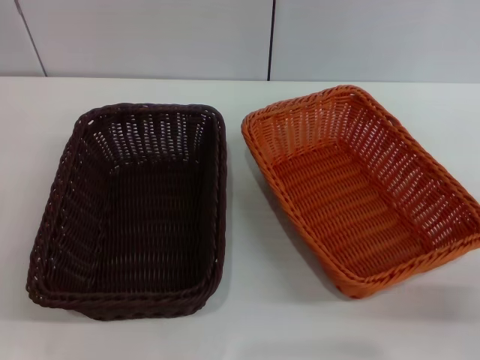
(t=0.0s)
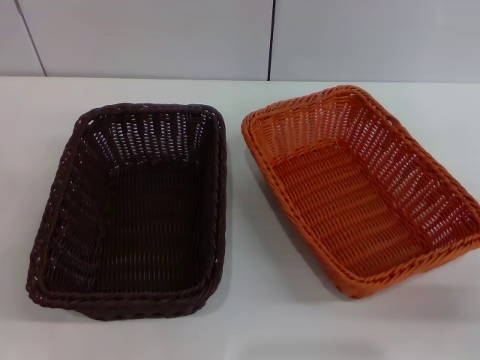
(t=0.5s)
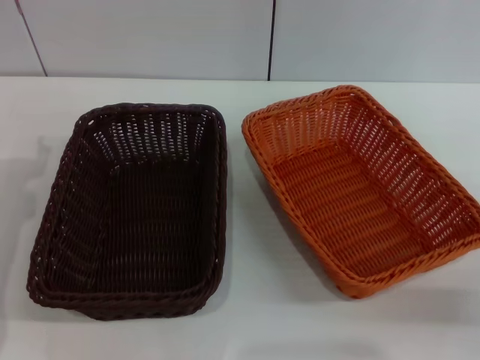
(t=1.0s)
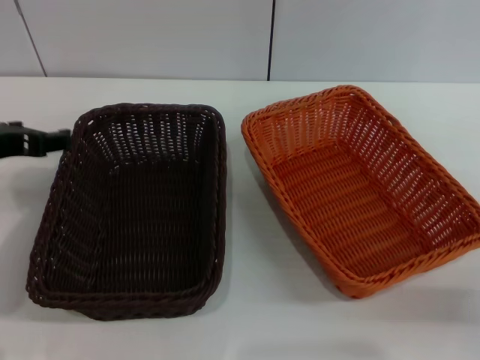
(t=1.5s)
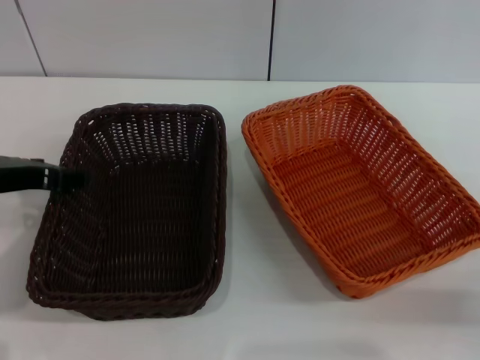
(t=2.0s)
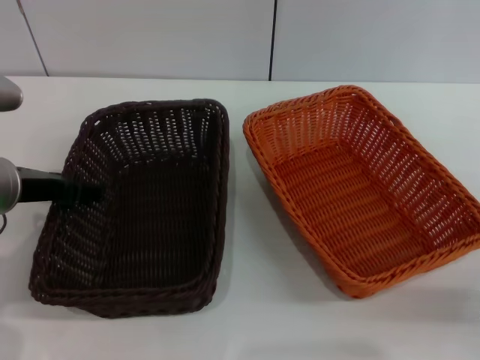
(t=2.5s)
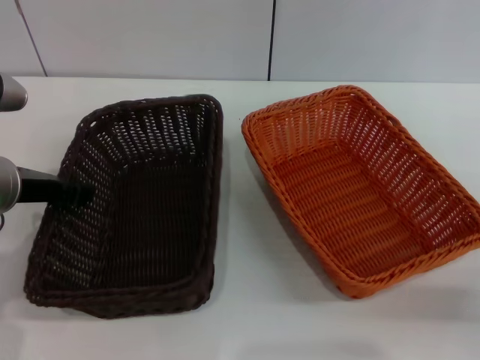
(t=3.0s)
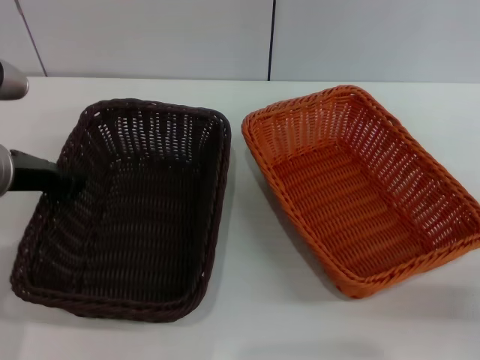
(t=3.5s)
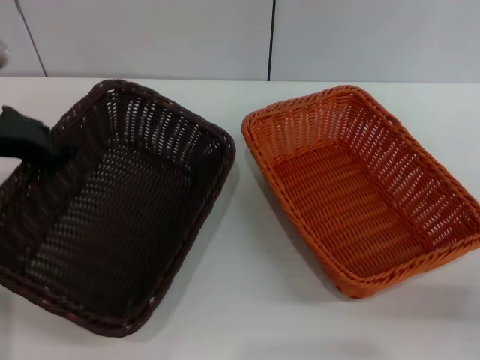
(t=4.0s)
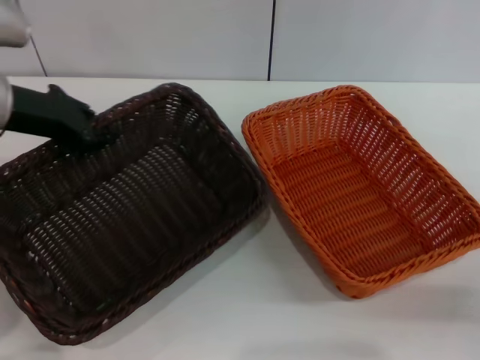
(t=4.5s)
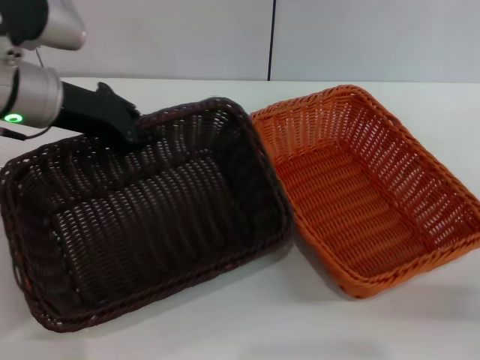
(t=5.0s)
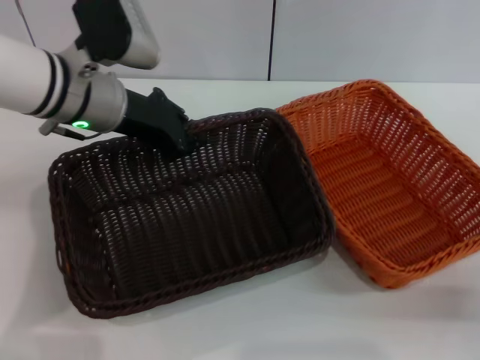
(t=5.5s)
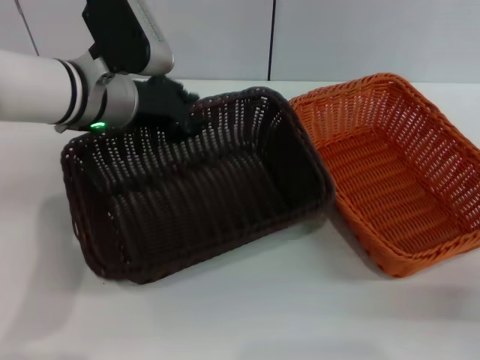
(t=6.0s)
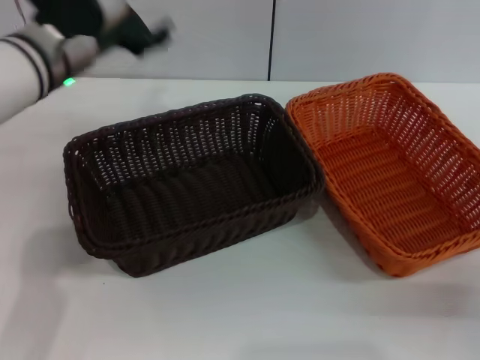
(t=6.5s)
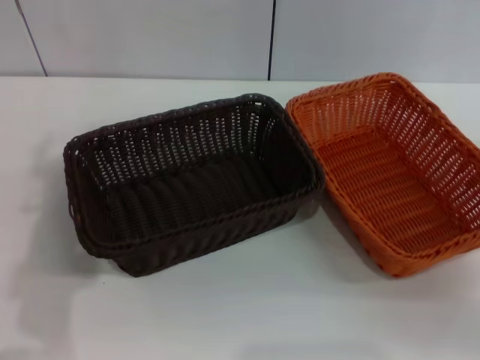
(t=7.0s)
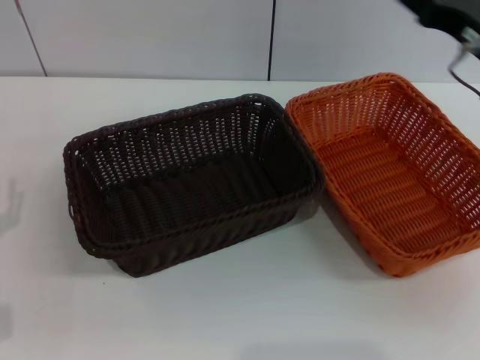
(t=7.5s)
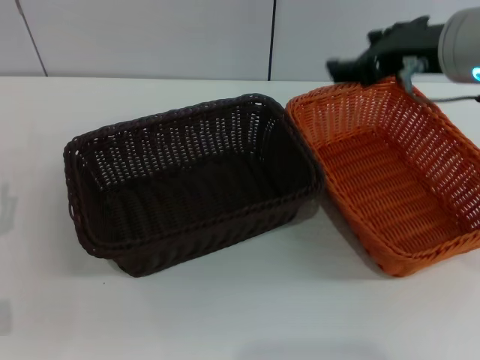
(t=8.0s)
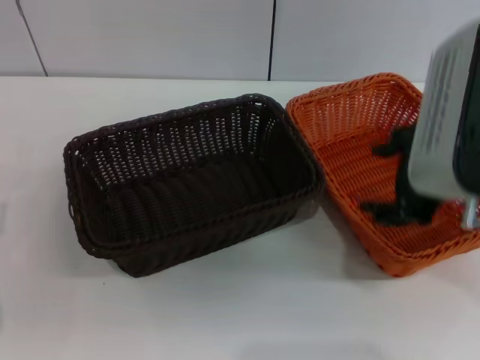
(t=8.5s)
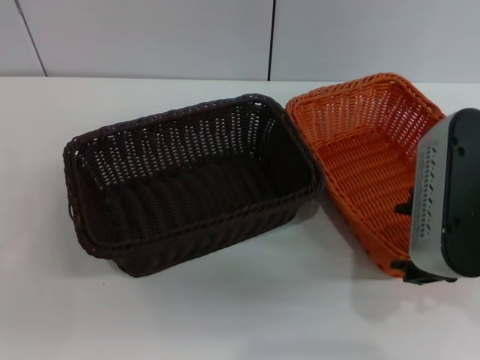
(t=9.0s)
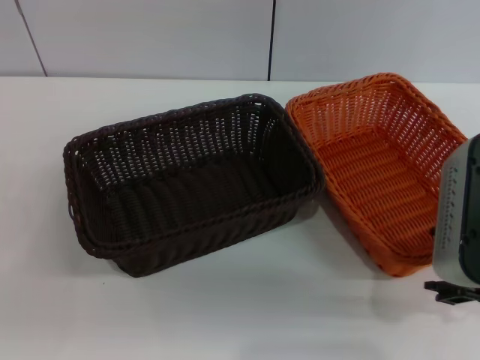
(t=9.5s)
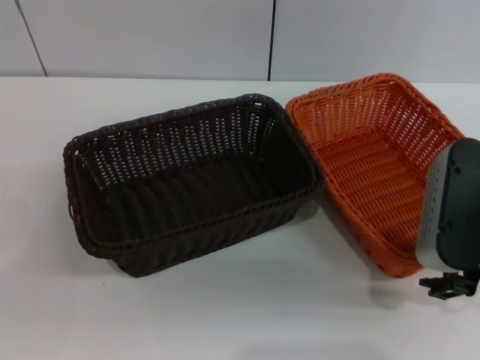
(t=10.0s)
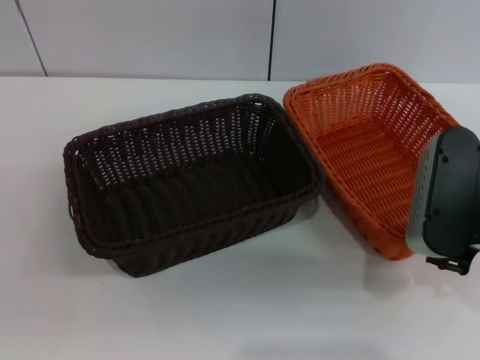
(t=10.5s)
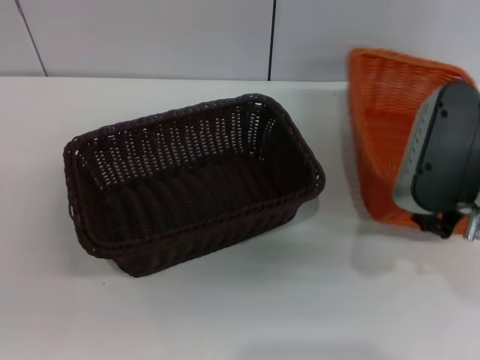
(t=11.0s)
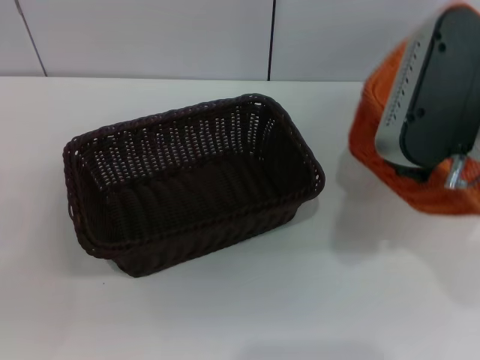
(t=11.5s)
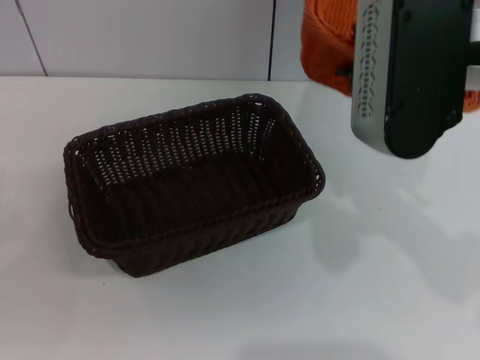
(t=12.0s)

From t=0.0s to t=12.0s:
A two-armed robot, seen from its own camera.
Step, from t=0.0s to t=4.0s: Pick up the dark basket with the left gripper.
Step, from t=4.5s to t=6.0s: Place the dark basket in the center of view with the left gripper.
Step, from t=6.5s to t=11.0s: Pick up the light basket with the right gripper.
From t=0.0s to t=2.0s: The left gripper heads upward, to the right and forward, covering roughly 20 cm.
From t=2.0s to t=4.0s: The left gripper shifts by approximately 5 cm, and closes.
From t=4.0s to t=6.0s: The left gripper is displaced to the right and forward by approximately 15 cm.
From t=6.0s to t=8.0s: The left gripper shifts some 25 cm backward, to the left and downward, and opens. The right gripper travels upward and to the left by roughly 25 cm.
From t=8.0s to t=10.0s: The right gripper goes approximately 10 cm downward and backward.
From t=10.0s to t=12.0s: The right gripper moves upward and to the left, some 15 cm, and closes.

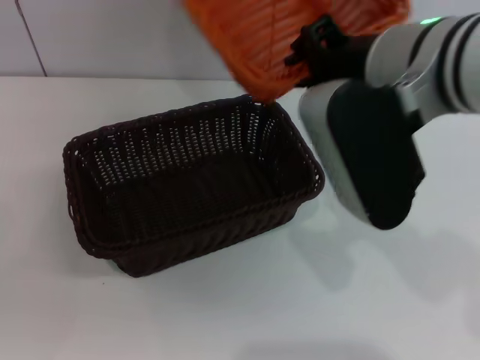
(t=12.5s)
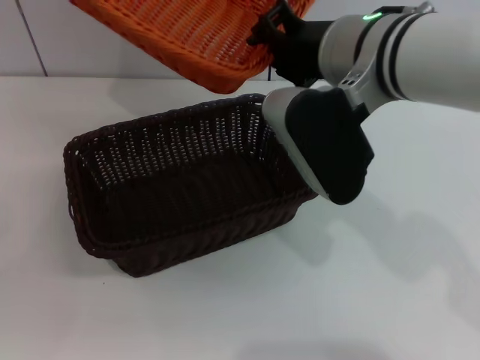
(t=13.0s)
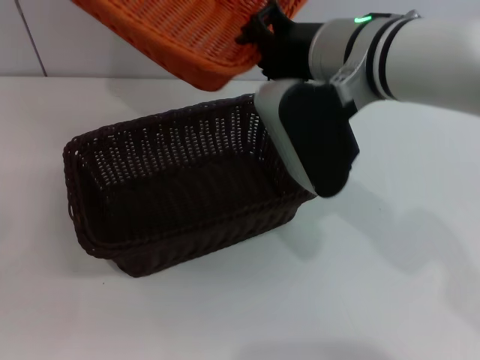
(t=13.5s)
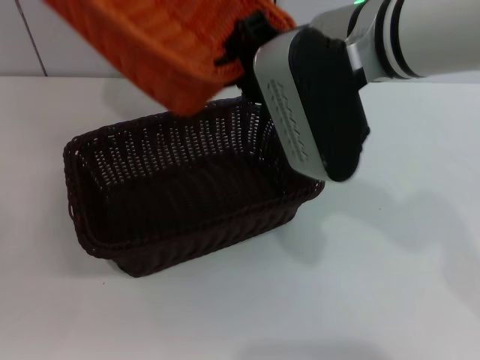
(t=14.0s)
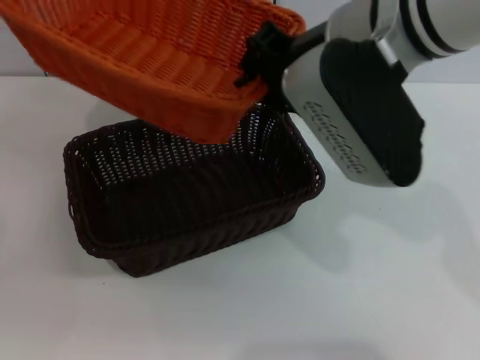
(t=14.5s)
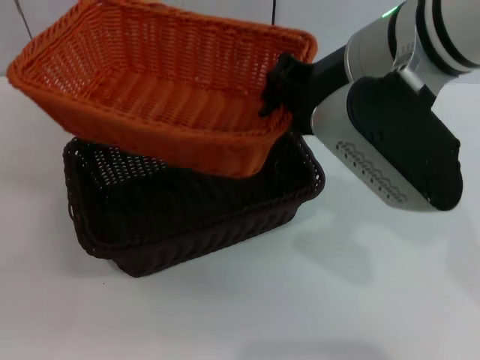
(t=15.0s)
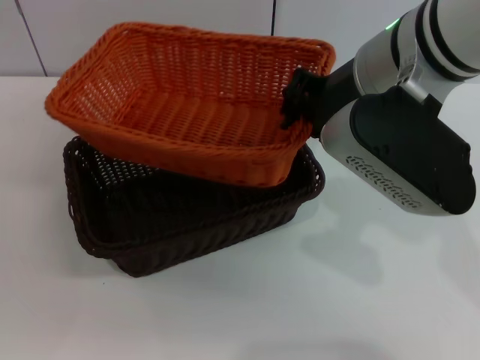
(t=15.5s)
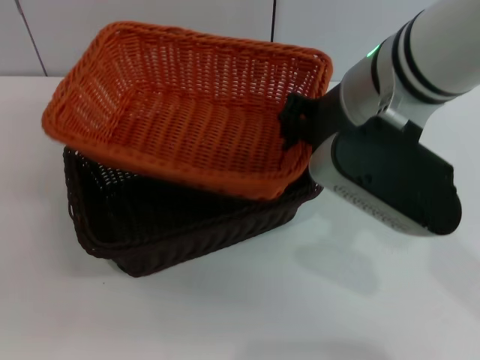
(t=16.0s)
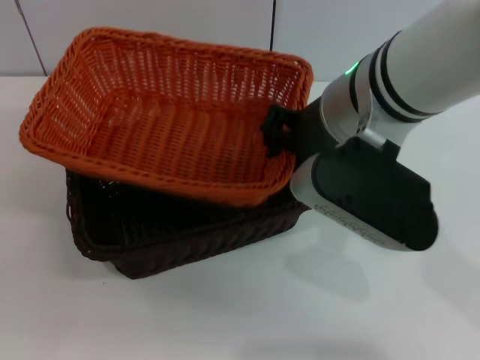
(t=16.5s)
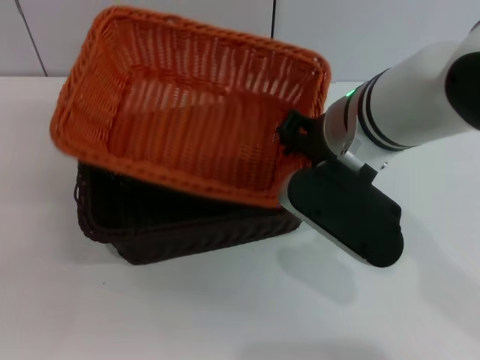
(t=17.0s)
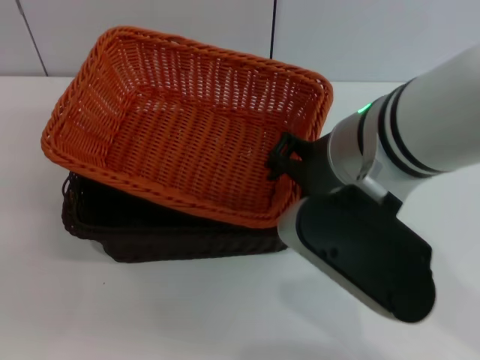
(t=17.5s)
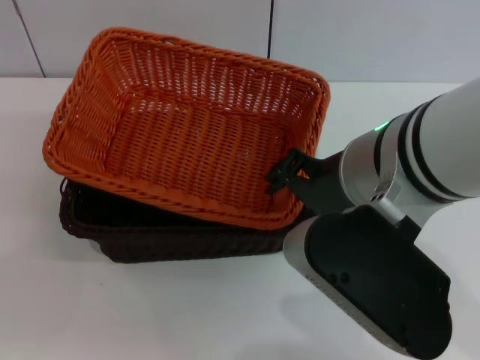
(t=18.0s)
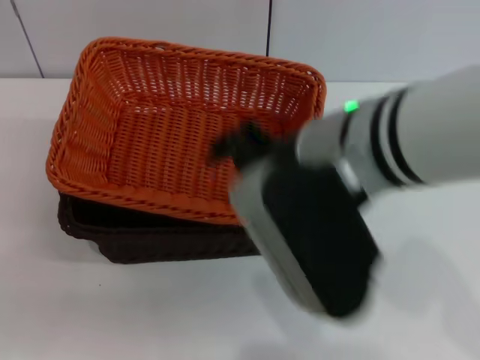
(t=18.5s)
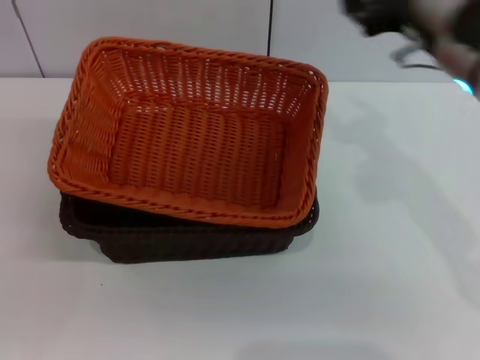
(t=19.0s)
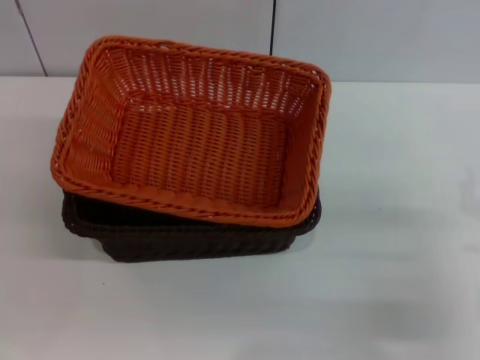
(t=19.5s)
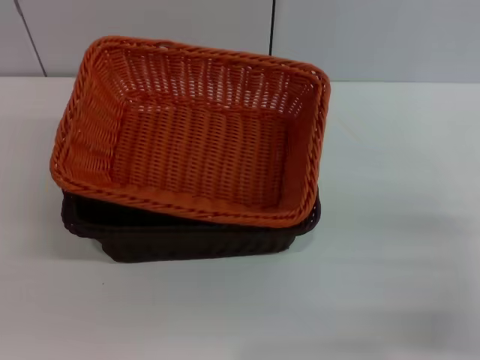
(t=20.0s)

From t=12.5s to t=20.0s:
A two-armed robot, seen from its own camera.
Step, from t=12.5s to t=18.0s: Place the light basket on the dark basket with the right gripper.
From t=16.5s to t=18.0s: The right gripper moves backward, approximately 5 cm, and opens up.
From t=18.0s to t=20.0s: The right gripper heads to the right and downward, covering roughly 30 cm.

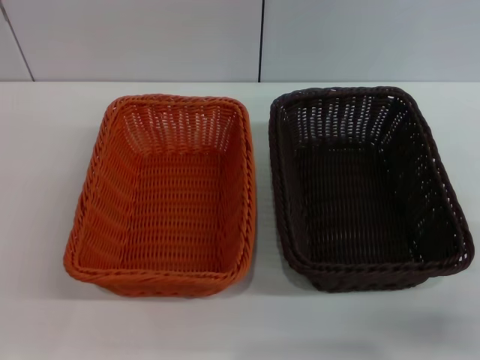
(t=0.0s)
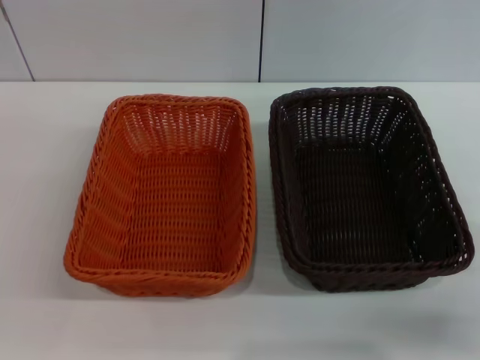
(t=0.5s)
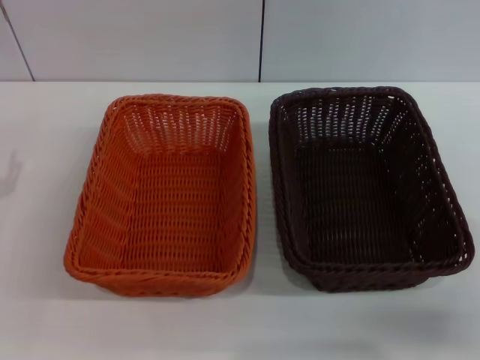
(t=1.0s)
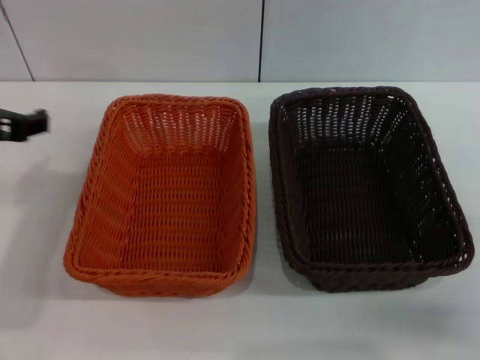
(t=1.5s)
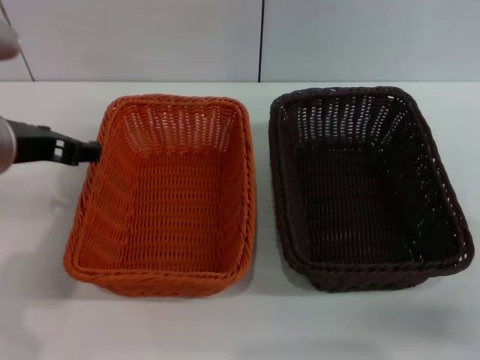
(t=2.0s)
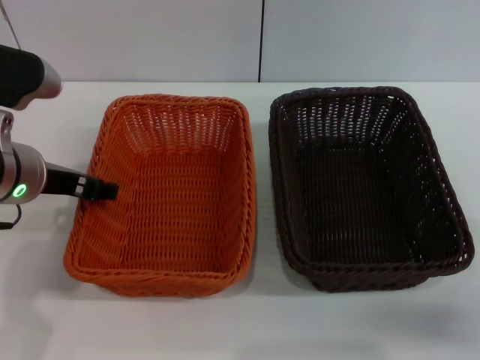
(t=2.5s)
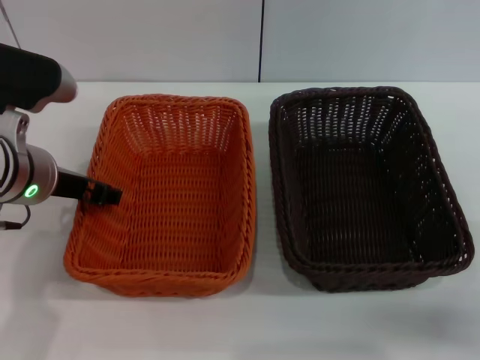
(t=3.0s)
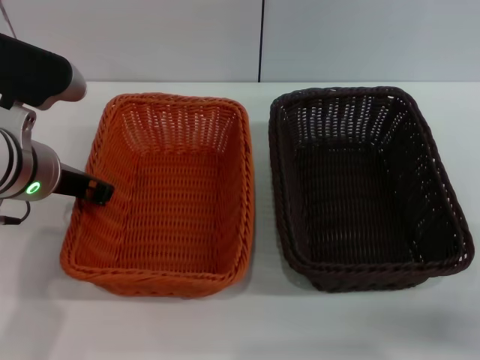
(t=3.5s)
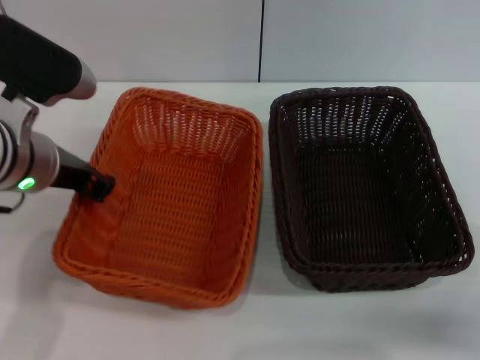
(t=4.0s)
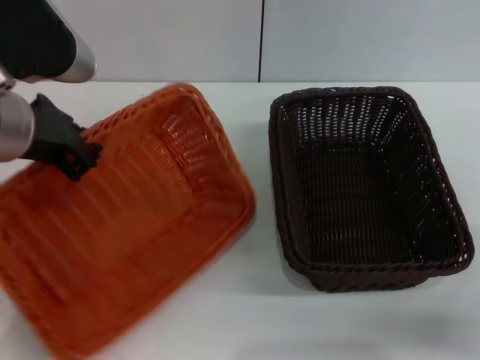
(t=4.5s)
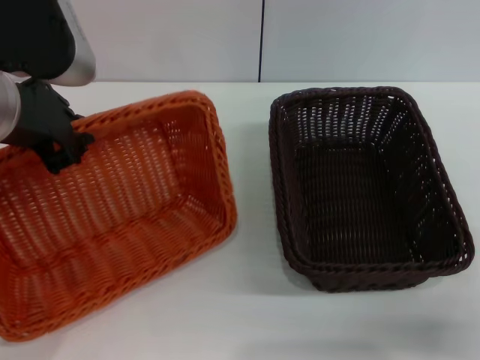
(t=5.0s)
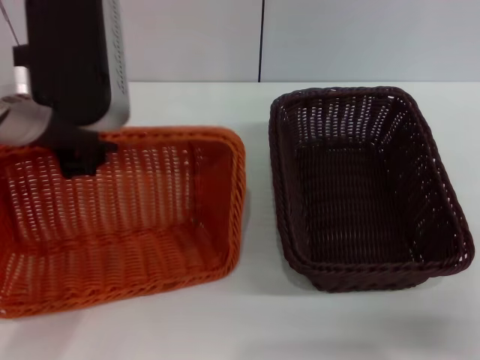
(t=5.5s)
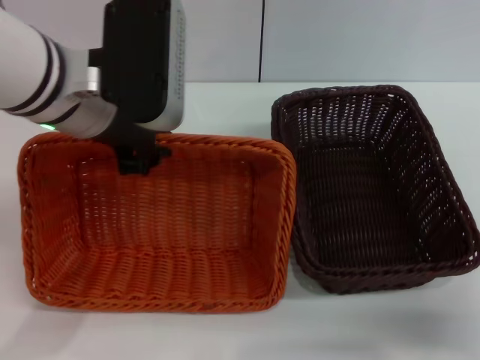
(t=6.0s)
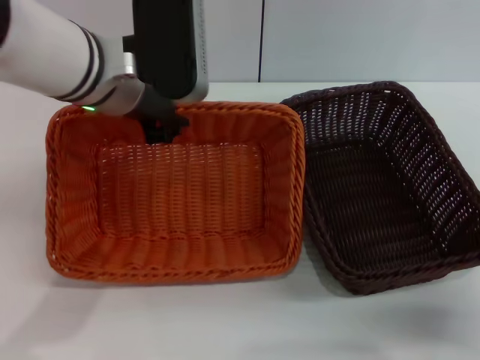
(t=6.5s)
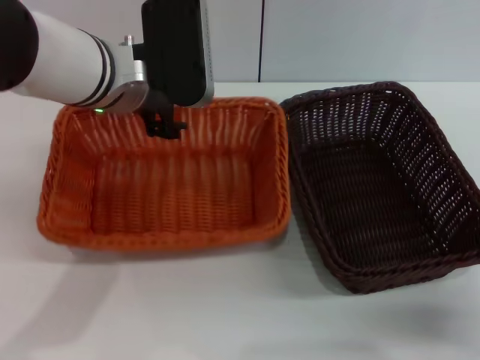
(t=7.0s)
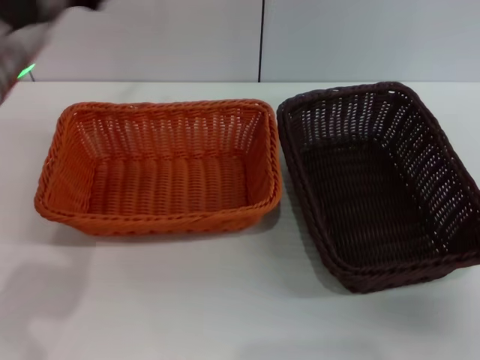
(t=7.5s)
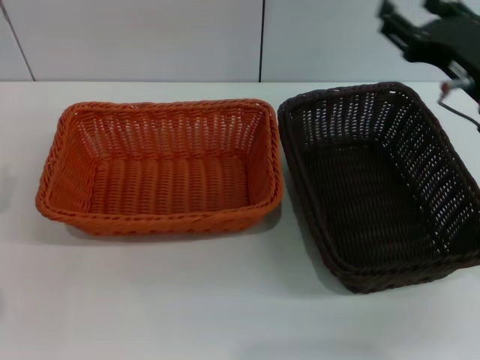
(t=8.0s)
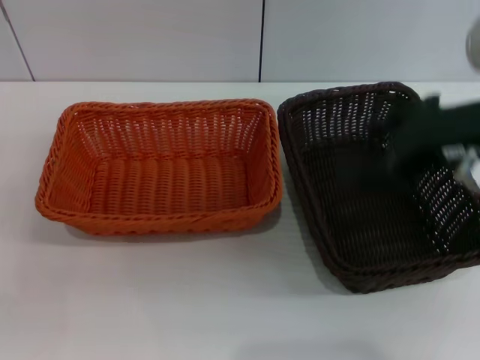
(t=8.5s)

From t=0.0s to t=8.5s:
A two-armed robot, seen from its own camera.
Step, from t=0.0s to t=4.0s: Pick up the light basket with the left gripper.
Step, from t=4.5s to t=7.0s: Place the light basket in the center of view with the left gripper.
From t=0.0s to t=2.0s: The left gripper travels upward, to the right and forward by some 25 cm.
From t=2.0s to t=4.0s: The left gripper closes its fingers.
From t=4.0s to t=6.5s: The left gripper shifts approximately 10 cm to the right and forward.
From t=6.5s to t=8.5s: The right gripper heads upward and to the left, covering approximately 25 cm. The left gripper goes approximately 30 cm to the left, downward and backward, and opens its fingers.